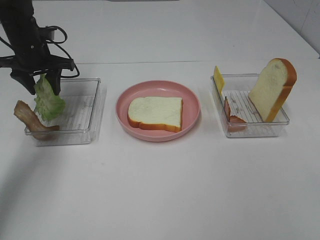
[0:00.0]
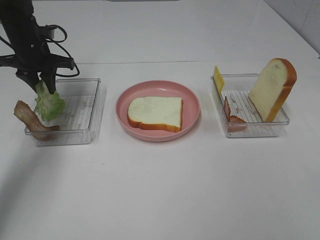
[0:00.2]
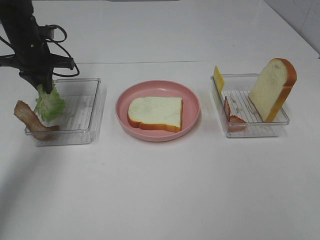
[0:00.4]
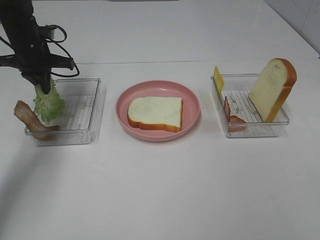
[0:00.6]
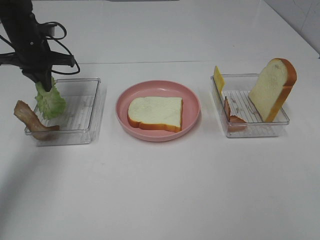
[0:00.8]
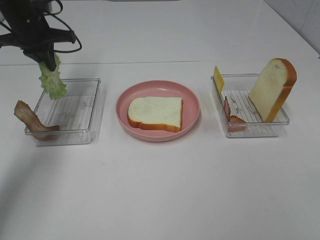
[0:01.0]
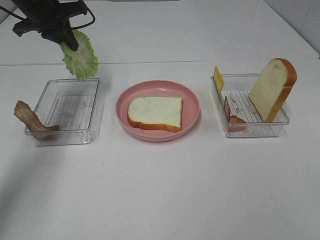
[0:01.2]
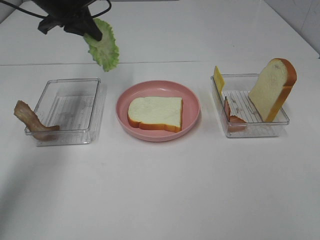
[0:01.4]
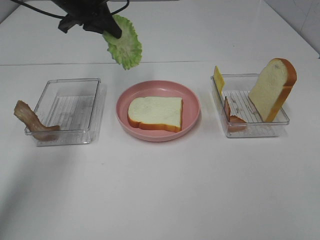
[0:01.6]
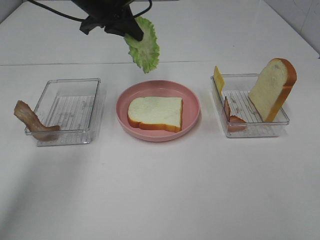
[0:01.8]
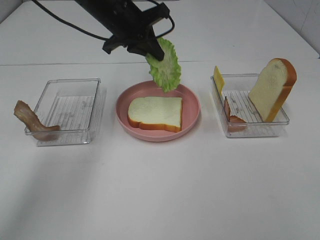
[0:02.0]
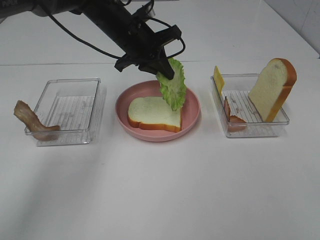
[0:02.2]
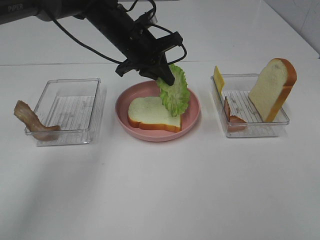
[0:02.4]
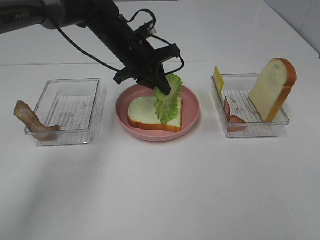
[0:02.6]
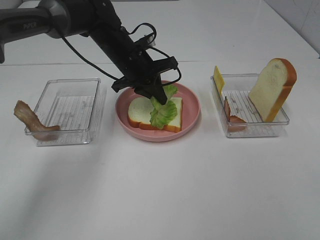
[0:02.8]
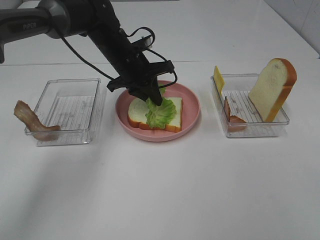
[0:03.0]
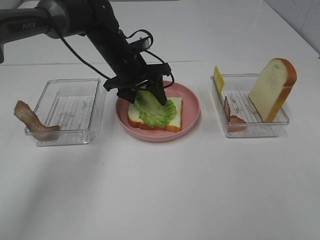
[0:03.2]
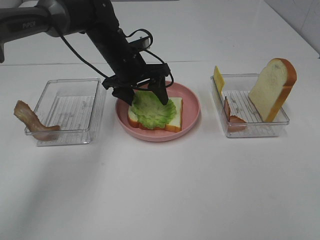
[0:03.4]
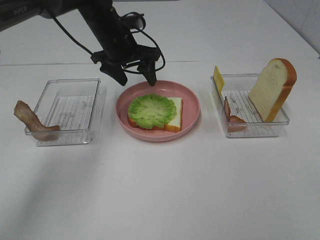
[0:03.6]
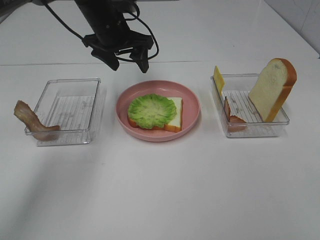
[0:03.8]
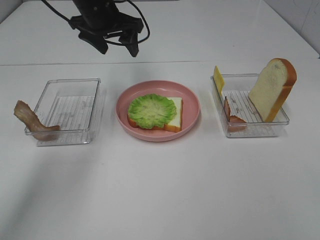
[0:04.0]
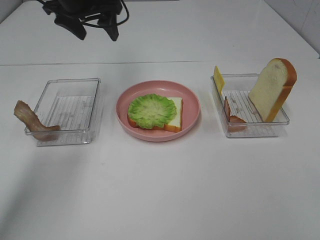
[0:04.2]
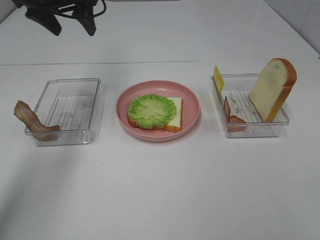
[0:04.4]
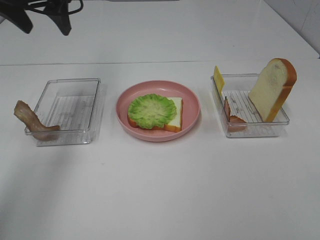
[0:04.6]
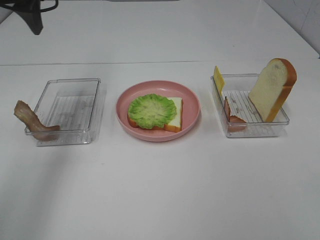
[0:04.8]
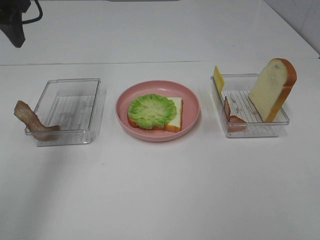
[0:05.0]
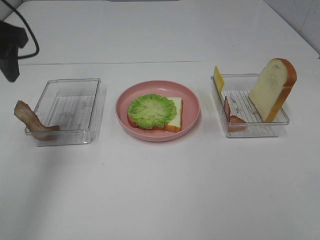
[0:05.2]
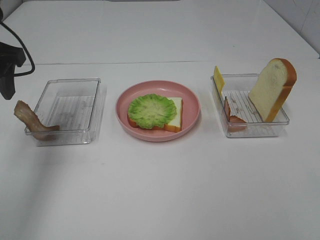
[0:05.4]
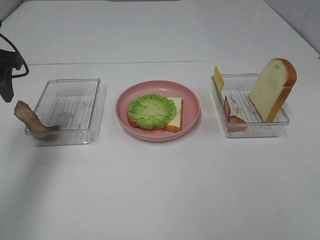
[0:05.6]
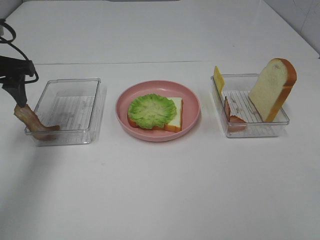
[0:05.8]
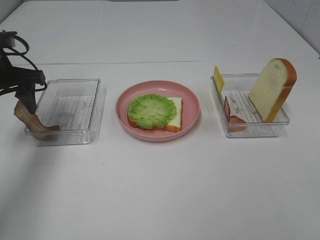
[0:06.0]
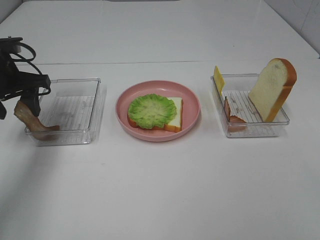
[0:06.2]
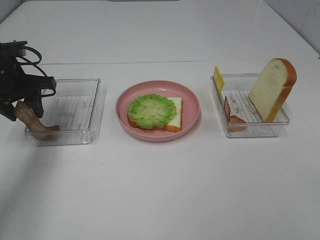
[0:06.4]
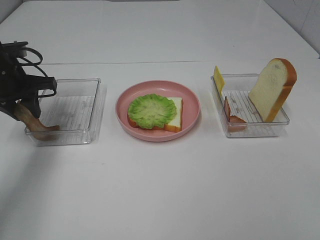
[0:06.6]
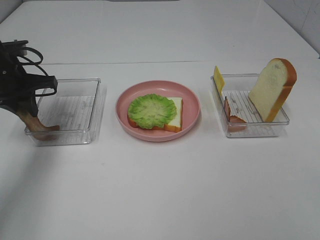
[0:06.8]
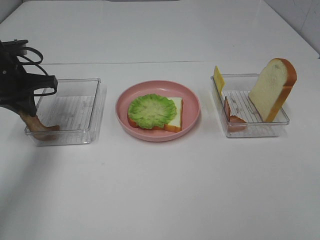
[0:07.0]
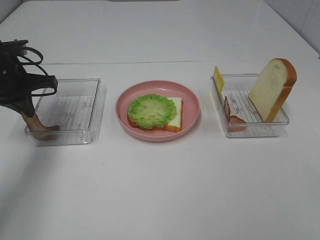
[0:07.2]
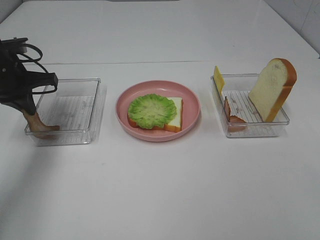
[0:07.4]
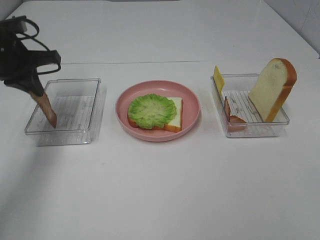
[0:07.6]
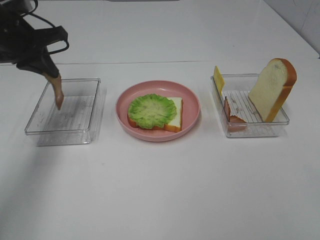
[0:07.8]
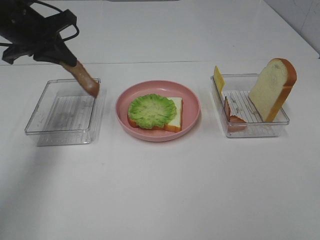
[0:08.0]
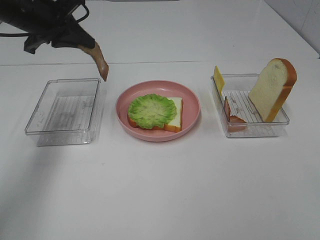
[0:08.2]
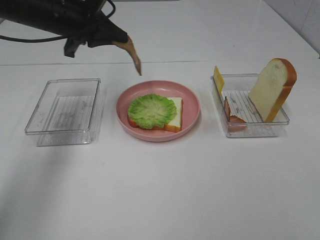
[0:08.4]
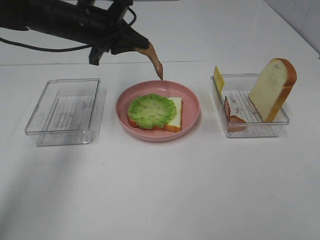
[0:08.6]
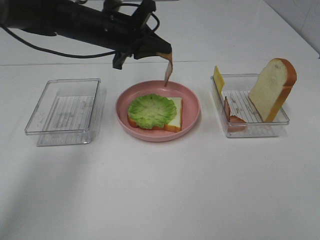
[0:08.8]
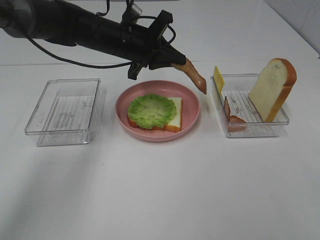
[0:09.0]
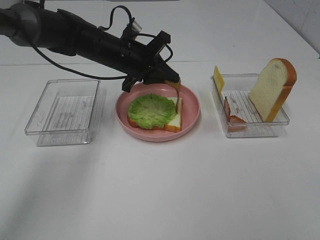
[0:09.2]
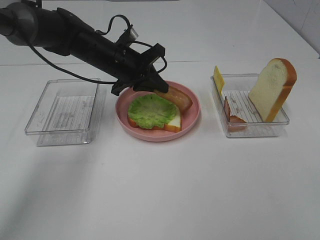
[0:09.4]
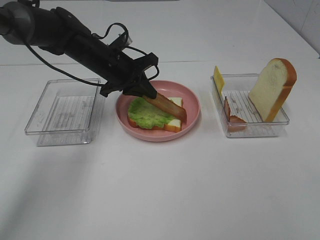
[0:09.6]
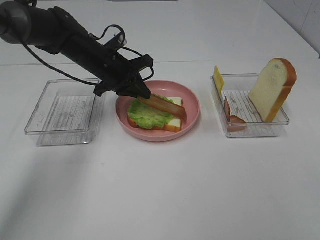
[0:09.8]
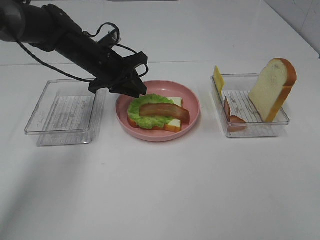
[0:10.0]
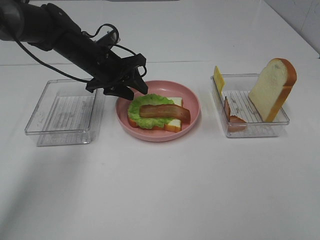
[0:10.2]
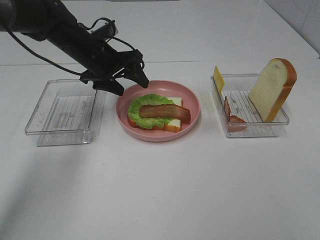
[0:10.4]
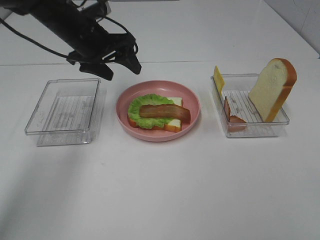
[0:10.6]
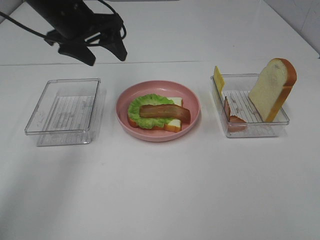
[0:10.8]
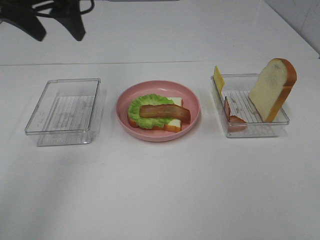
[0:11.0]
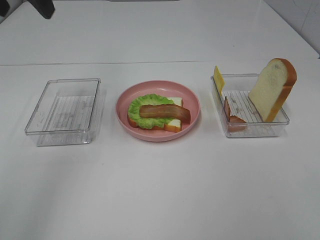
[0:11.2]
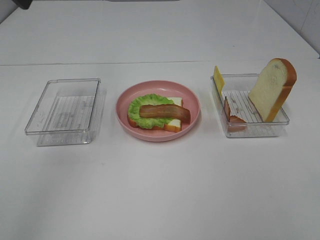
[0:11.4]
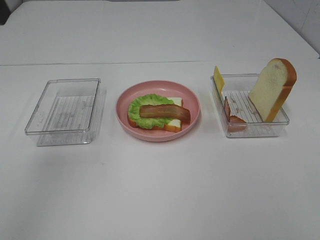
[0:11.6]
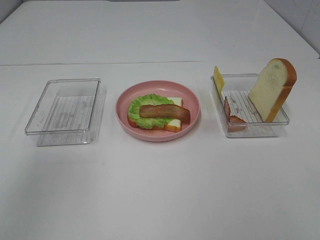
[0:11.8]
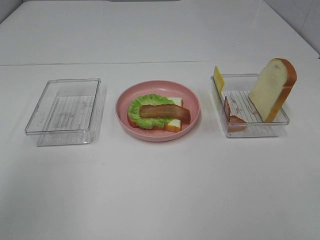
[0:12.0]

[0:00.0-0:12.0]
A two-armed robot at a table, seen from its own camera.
Task of the whole recording: Make sandwiches.
Step, 0:00.8 to 0:03.4: Left hand:place the lettuce slice on the bread slice.
Step, 0:03.6 to 0:07.0: Left hand:grab the bacon.
Step, 0:07.2 to 0:10.2: Left hand:place bacon on lettuce slice.
0:00.0 to 0:01.6: The left gripper moves to the right and upward, roughly 15 cm, and closes up.
0:01.6 to 0:03.0: The left gripper is displaced downward and to the right by some 15 cm.
0:03.0 to 0:04.4: The left gripper is displaced upward and to the left by about 20 cm, and opens up.
0:04.4 to 0:06.0: The left gripper travels downward, backward and to the left by some 15 cm.
0:06.0 to 0:07.6: The left gripper closes its fingers.
0:07.6 to 0:09.0: The left gripper is displaced to the right by about 20 cm.
0:09.0 to 0:10.4: The left gripper travels to the left by roughly 5 cm, and opens its fingers.
0:10.4 to 0:12.0: The left gripper goes about 40 cm backward, upward and to the left.

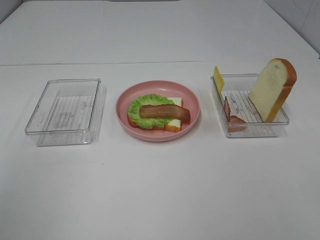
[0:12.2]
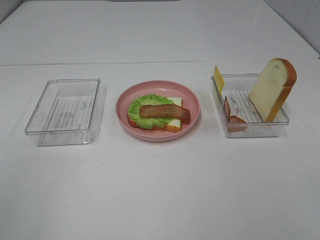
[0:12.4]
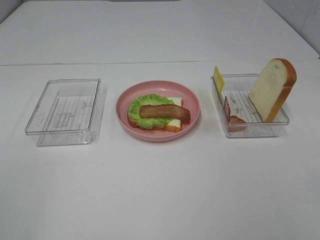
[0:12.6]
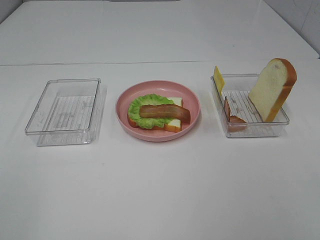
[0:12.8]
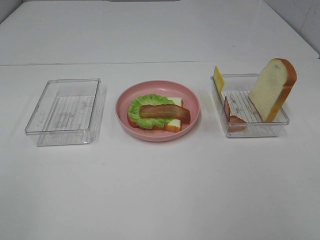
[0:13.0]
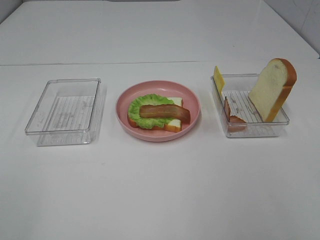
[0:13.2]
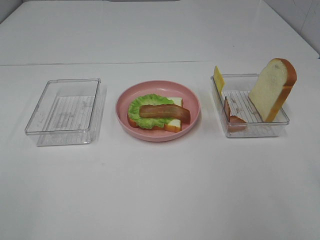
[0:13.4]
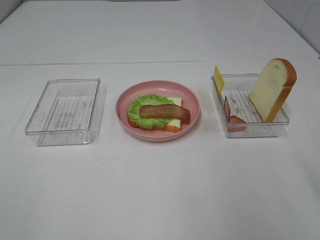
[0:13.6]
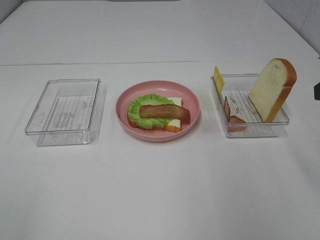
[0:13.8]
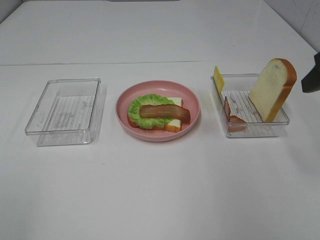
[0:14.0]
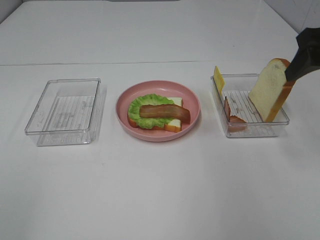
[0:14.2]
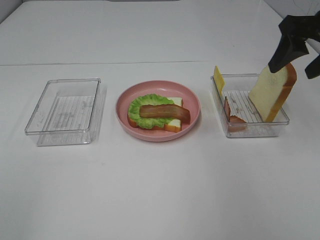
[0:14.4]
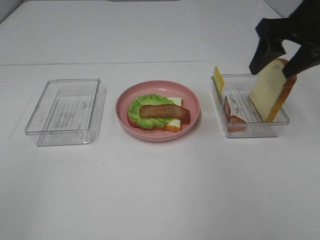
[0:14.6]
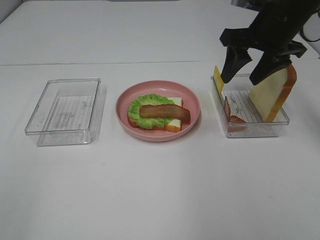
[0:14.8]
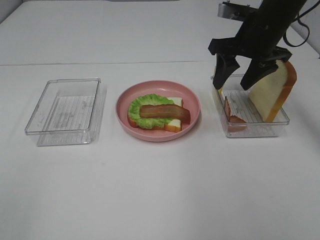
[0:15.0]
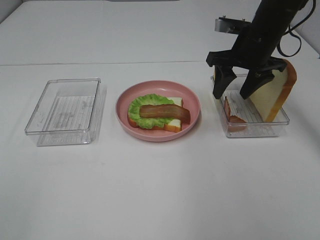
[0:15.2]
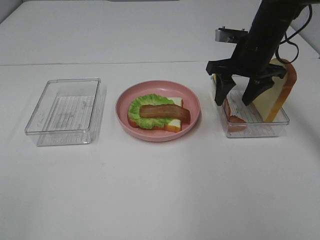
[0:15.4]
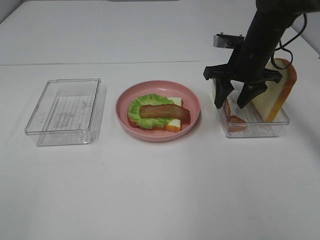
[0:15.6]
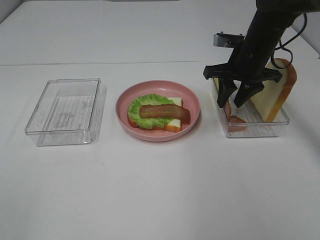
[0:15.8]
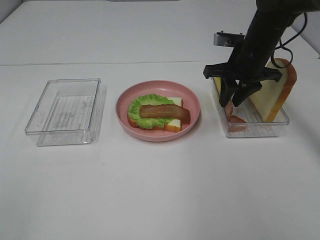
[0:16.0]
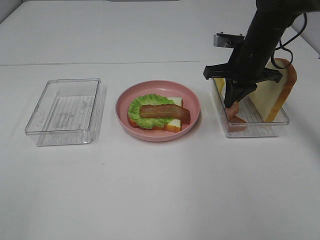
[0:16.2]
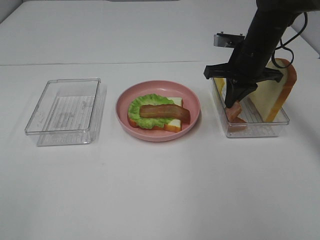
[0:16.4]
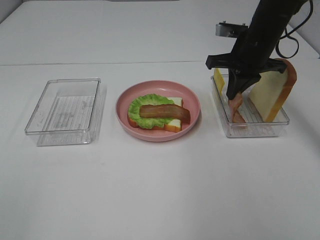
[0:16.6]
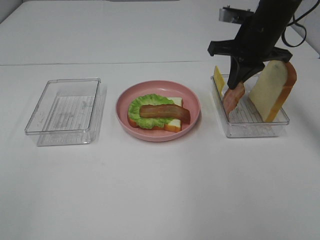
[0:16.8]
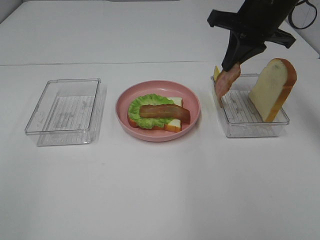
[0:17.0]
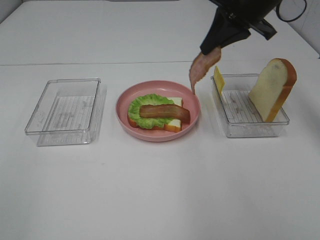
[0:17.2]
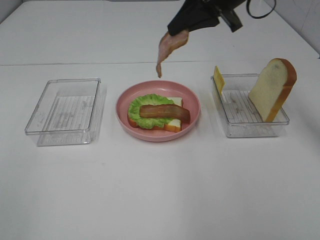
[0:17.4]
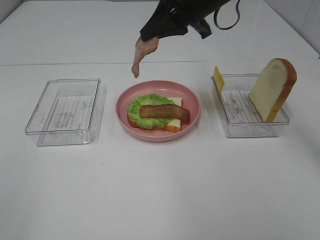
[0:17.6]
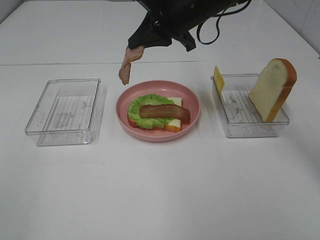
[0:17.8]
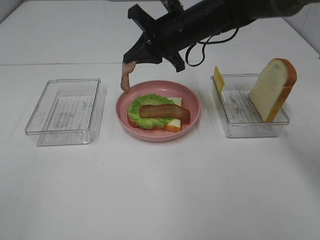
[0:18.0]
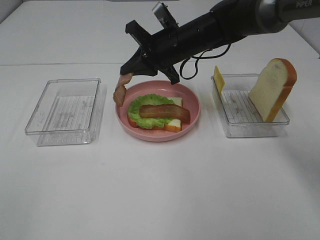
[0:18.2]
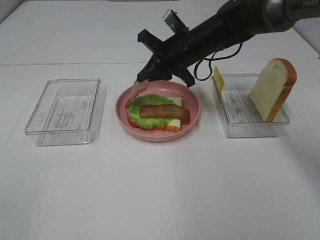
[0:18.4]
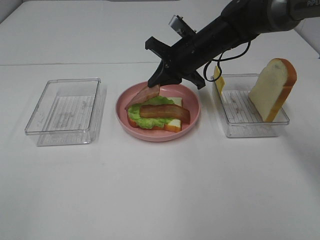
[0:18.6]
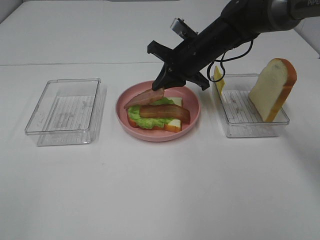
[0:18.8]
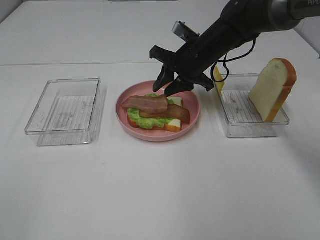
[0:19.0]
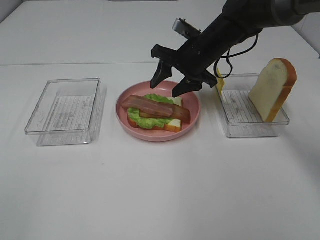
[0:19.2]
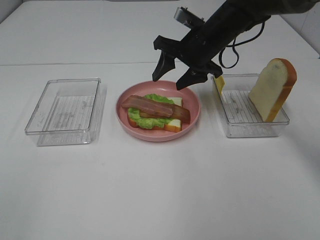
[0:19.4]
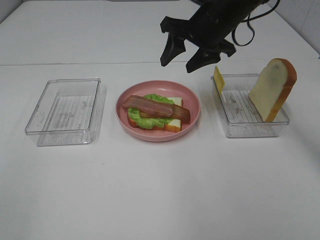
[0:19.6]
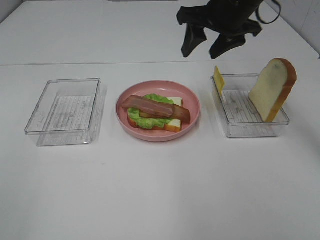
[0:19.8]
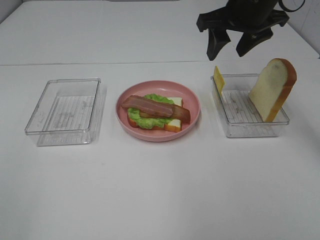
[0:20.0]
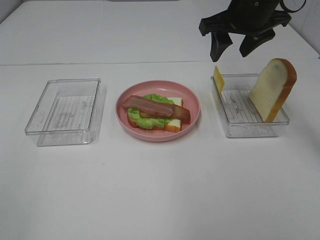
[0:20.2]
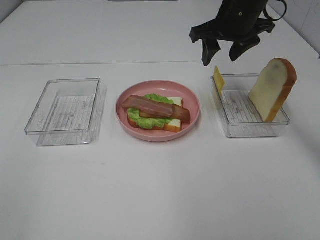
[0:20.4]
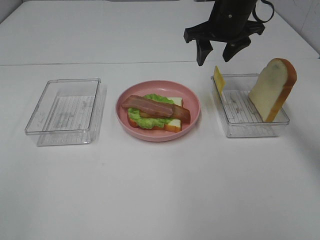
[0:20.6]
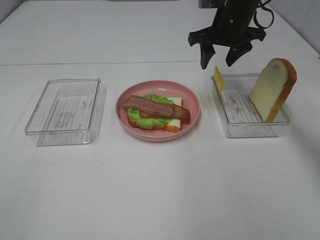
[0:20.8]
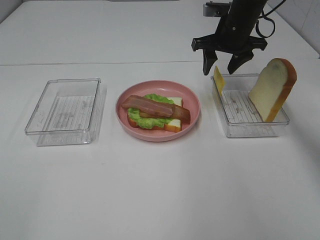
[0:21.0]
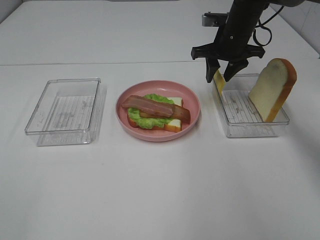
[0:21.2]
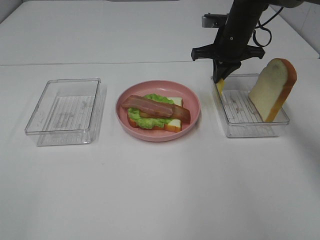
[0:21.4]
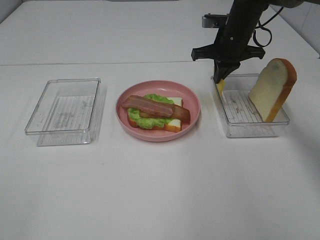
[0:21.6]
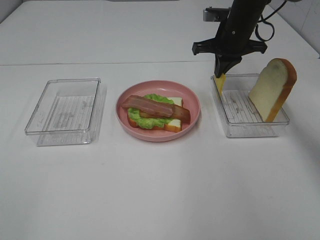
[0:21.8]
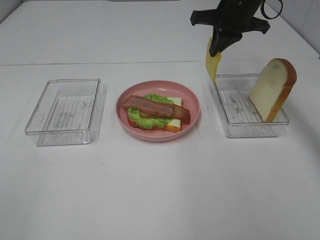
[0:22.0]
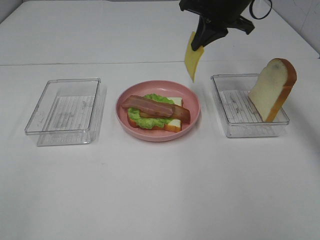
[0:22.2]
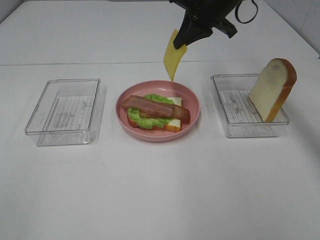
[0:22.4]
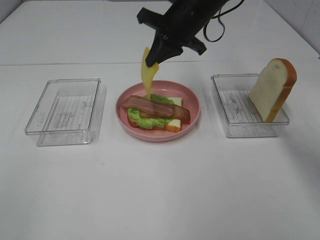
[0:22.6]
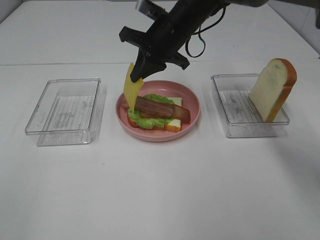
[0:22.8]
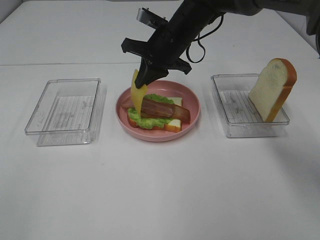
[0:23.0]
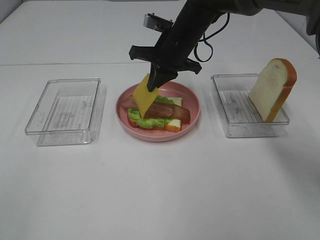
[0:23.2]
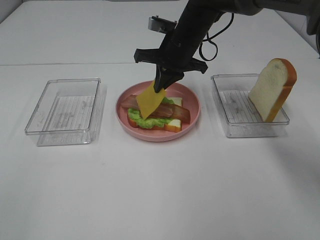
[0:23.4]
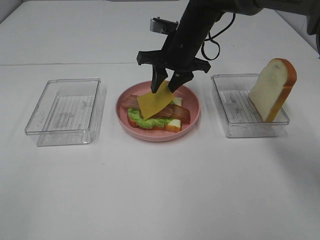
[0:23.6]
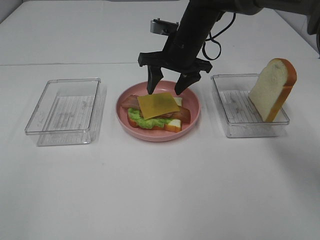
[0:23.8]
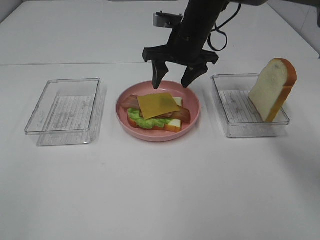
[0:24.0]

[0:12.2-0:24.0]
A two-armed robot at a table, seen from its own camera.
Task of the whole recording: Make sandwiches.
Step, 0:12.2 to 0:16.2: Right hand:grab the bacon.
Step, 0:16.4 to 0:19.6: Right hand:place bacon on lettuce slice.
Step, 0:19.8 to 0:21.4: Right hand:grab the cheese slice.
Step, 0:21.6 to 0:24.0: Right hand:place the cheese slice on top of the bacon.
0:13.6 to 0:15.2: The right gripper heads forward, covering some 25 cm.
0:15.2 to 0:16.6: The right gripper closes its fingers.
0:16.6 to 0:18.2: The right gripper goes some 15 cm to the left, and moves roughly 10 cm upward and comes back.
0:18.2 to 0:19.6: The right gripper heads upward and to the right, covering some 10 cm, and opens up.
0:19.6 to 0:21.0: The right gripper heads forward and downward, covering some 10 cm.
0:21.0 to 0:22.6: The right gripper heads to the left, covering approximately 10 cm, and closes.
0:22.6 to 0:24.0: The right gripper opens up.
